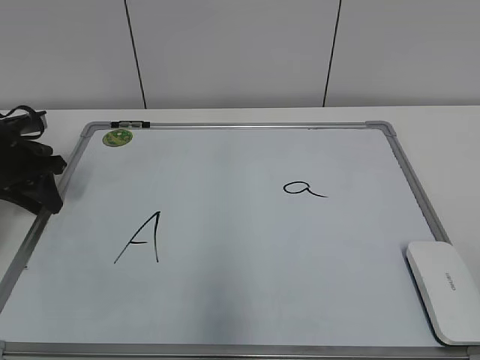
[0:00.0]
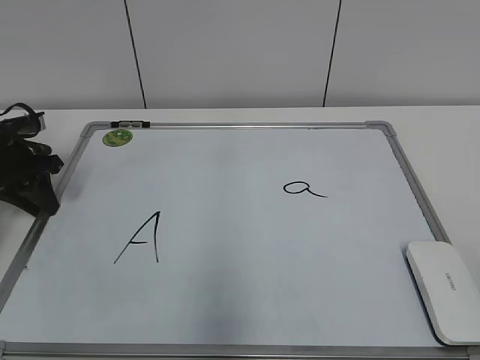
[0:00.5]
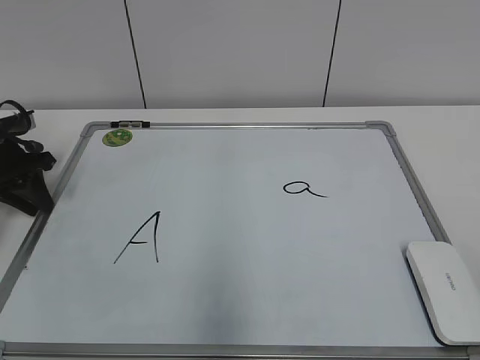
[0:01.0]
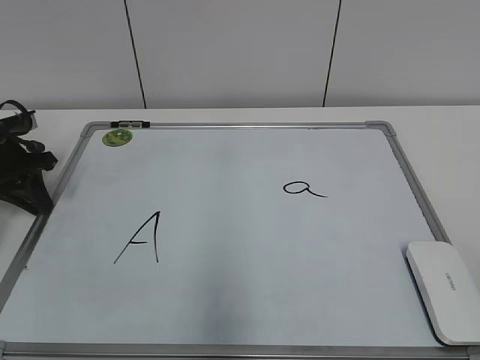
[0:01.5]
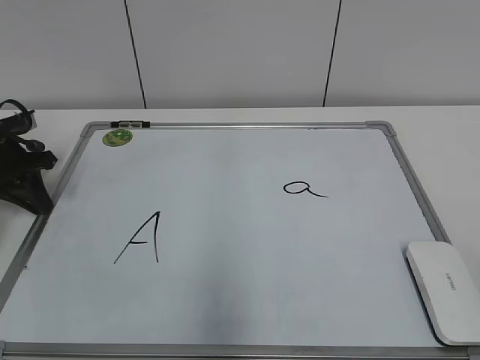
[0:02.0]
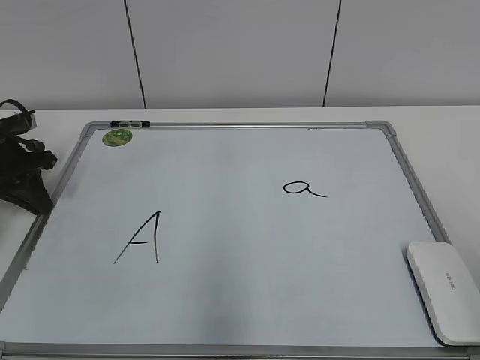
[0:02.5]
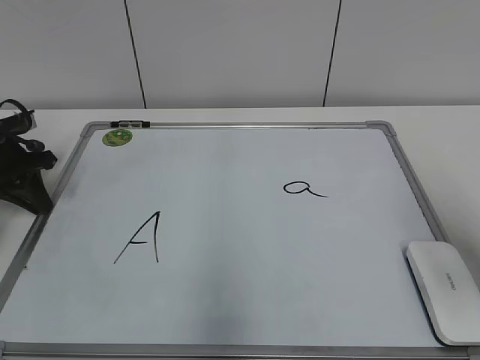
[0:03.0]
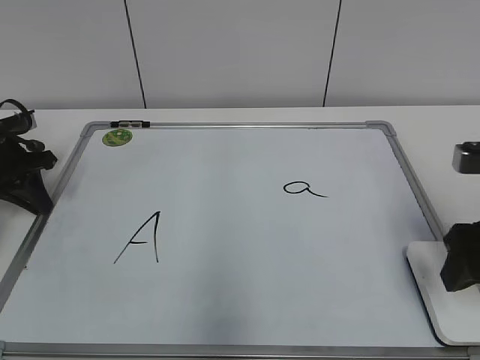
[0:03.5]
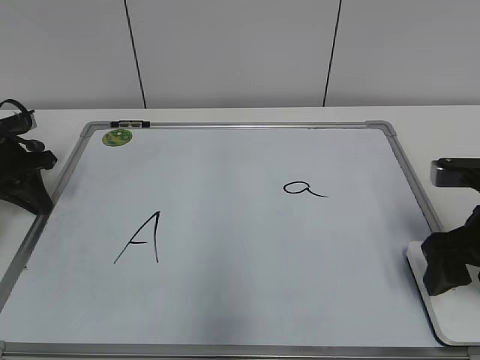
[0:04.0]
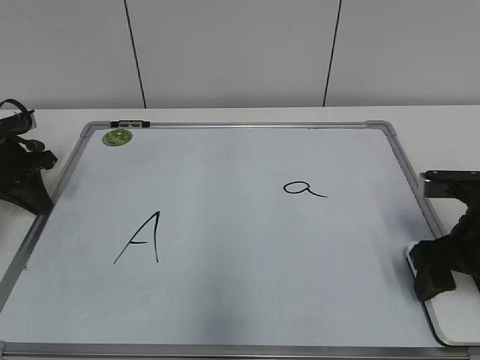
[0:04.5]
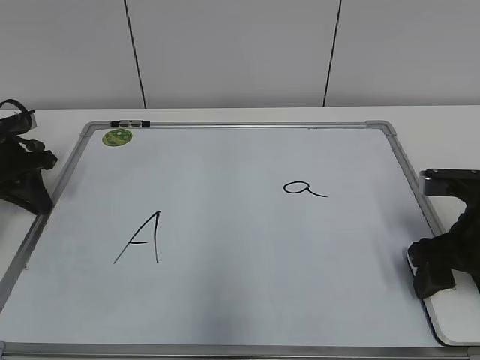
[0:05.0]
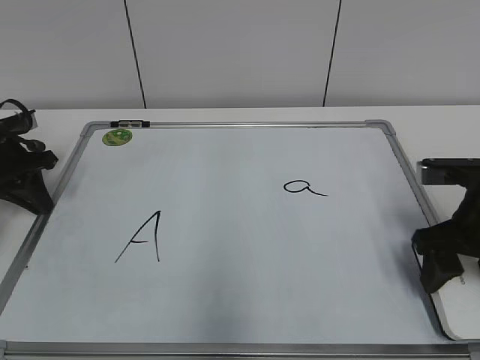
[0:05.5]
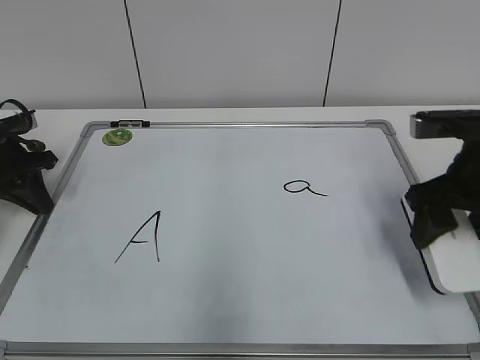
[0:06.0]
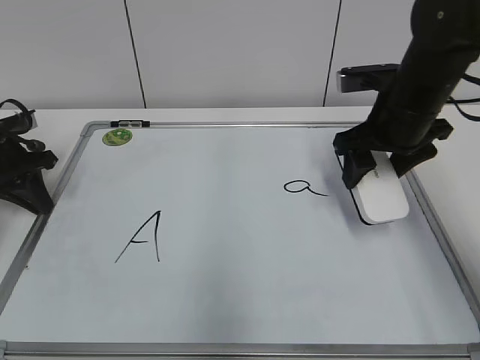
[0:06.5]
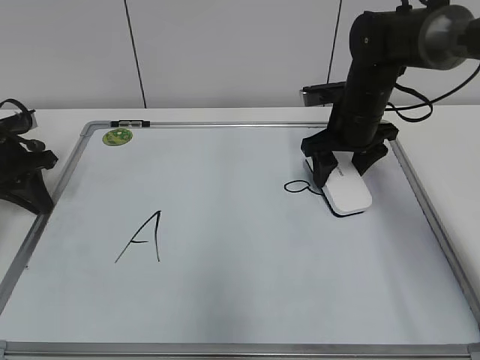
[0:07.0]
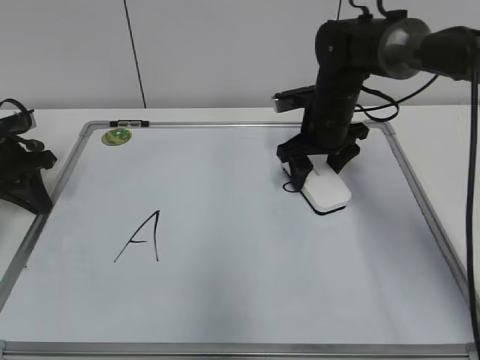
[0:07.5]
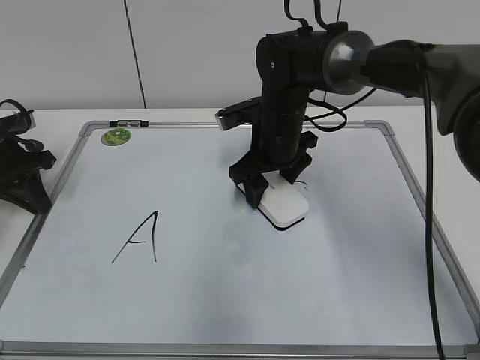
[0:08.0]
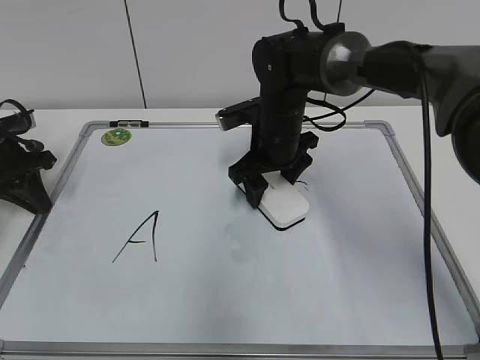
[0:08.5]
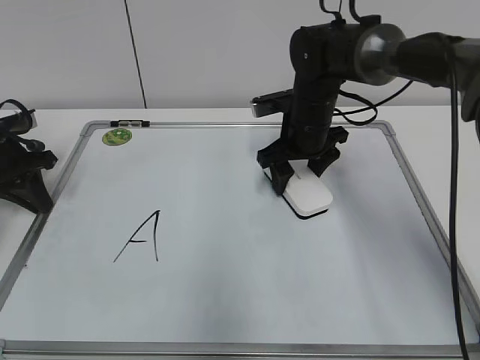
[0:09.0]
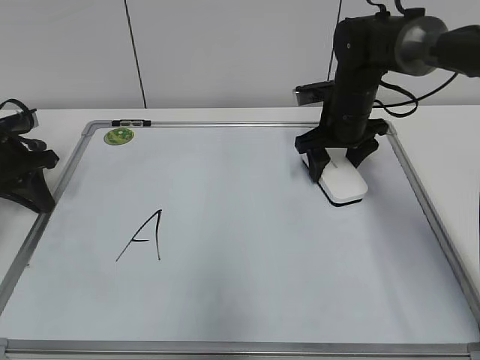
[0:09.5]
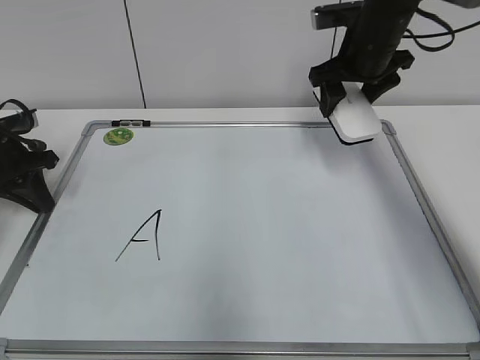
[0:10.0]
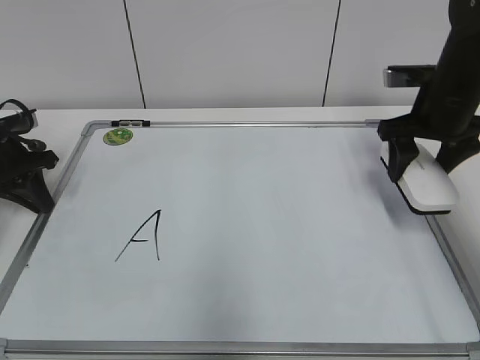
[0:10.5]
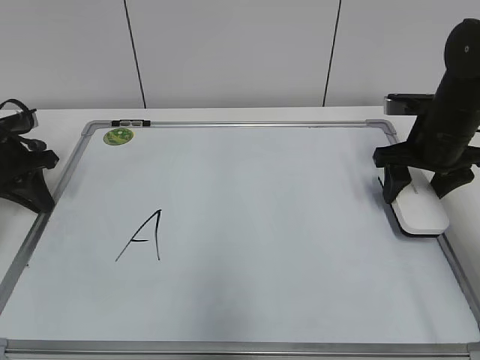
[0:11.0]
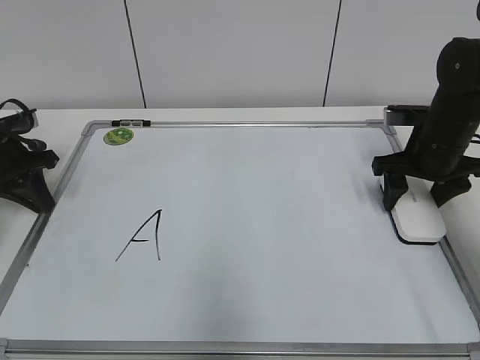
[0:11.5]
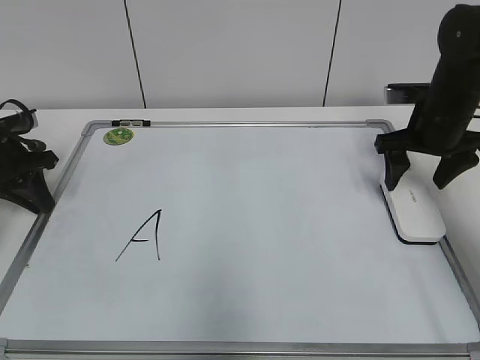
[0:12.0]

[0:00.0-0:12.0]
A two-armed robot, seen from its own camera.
Task of the whole recording: pick up the eraser on the blackboard and erase the letter "a".
Step, 0:00.0 to 0:05.0: Grab the eraser with your right hand.
Step, 0:05.5 to 0:09.0: Erase the letter a with your right hand.
Step, 0:09.5 to 0:11.5: Put down the eraser with your right hand.
0:00.0 to 0:02.0: The left gripper closes.
0:02.0 to 0:04.0: The right gripper shifts about 25 cm forward.
0:04.0 to 0:06.0: The right gripper shifts by roughly 5 cm.
0:06.0 to 0:08.0: The right gripper is displaced to the left and forward by roughly 25 cm.
0:08.0 to 0:10.0: The right gripper moves to the right and upward, about 15 cm.
0:10.0 to 0:12.0: The right gripper travels to the right, downward and backward by roughly 10 cm.

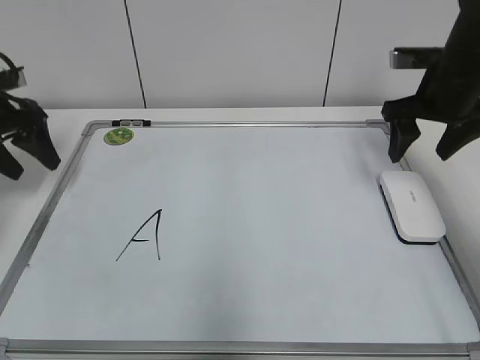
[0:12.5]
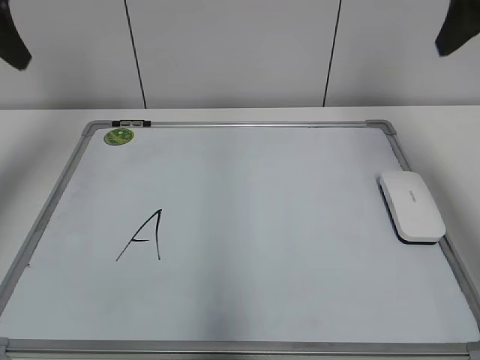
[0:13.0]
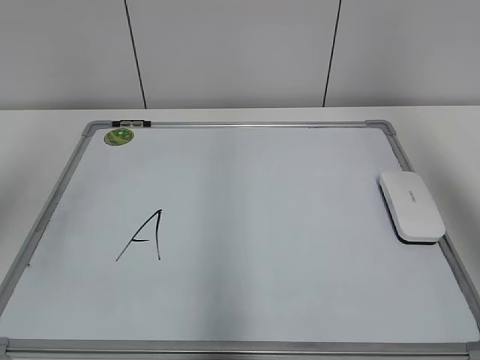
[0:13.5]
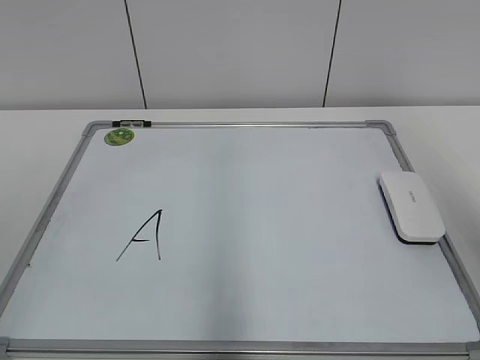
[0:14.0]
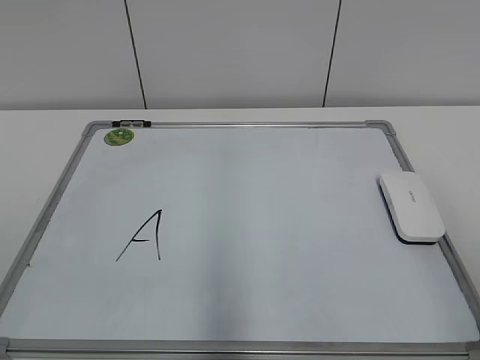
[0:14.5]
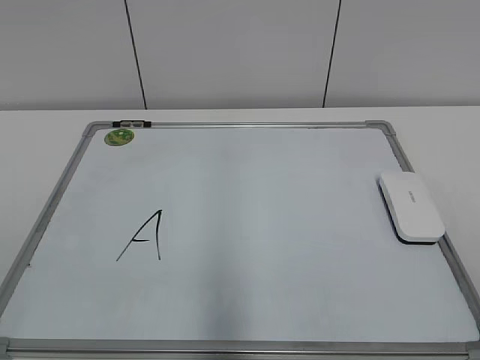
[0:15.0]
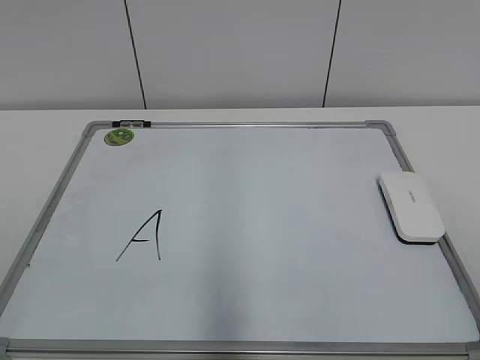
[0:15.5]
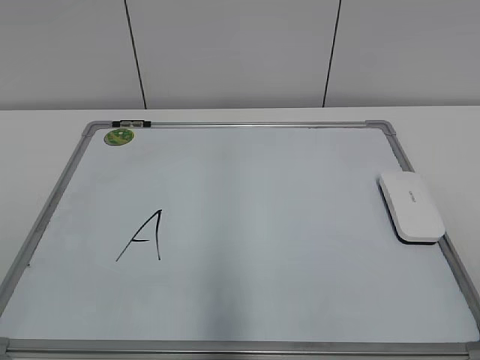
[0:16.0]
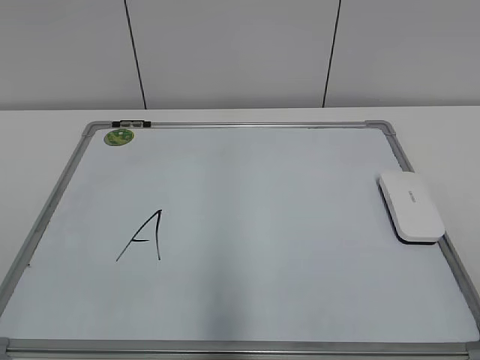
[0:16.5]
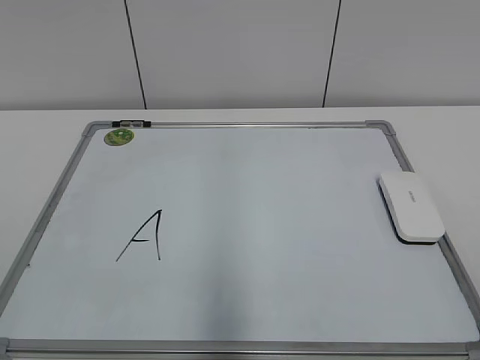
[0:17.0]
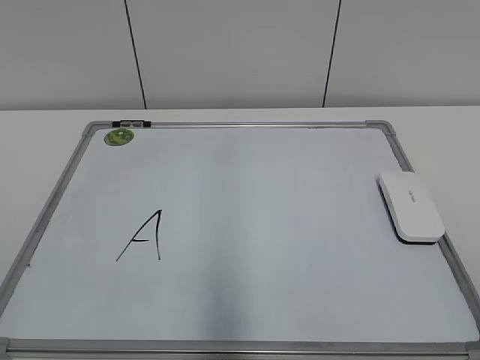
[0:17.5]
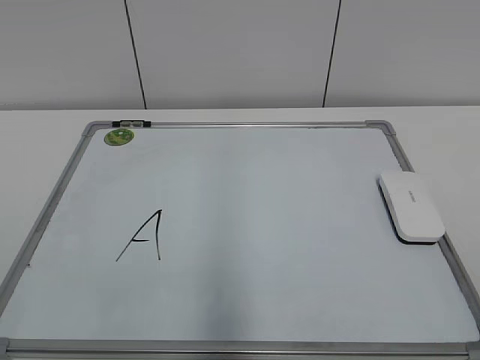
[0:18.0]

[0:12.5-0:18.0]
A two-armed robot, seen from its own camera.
Task of the whole recording: pick up the eraser on the blackboard and erase the letter "a".
0:12.5 to 0:14.5: Both grippers move backward, some 35 cm.

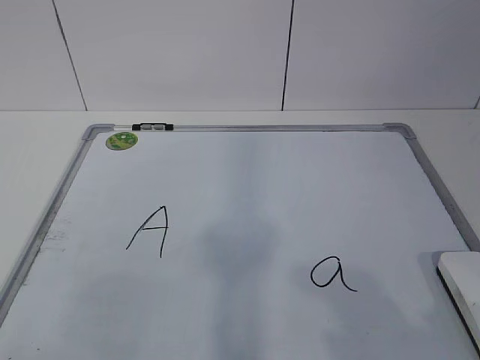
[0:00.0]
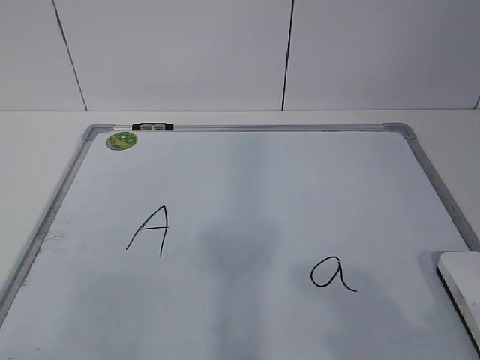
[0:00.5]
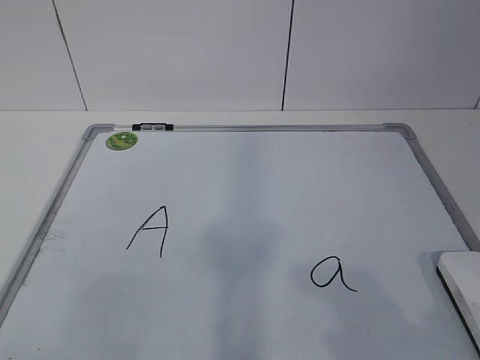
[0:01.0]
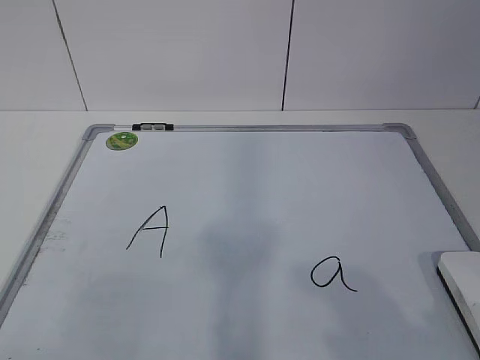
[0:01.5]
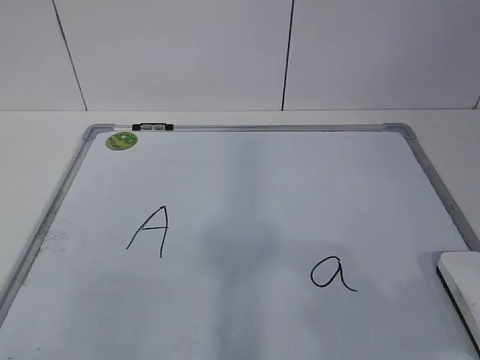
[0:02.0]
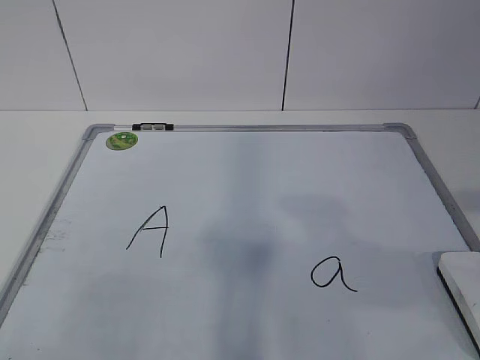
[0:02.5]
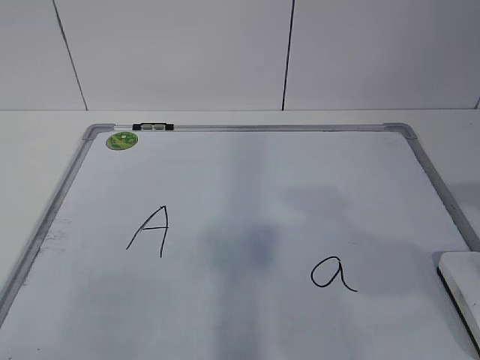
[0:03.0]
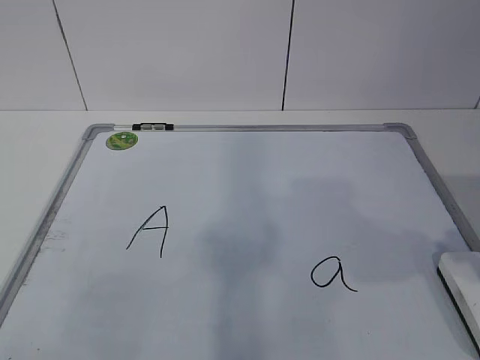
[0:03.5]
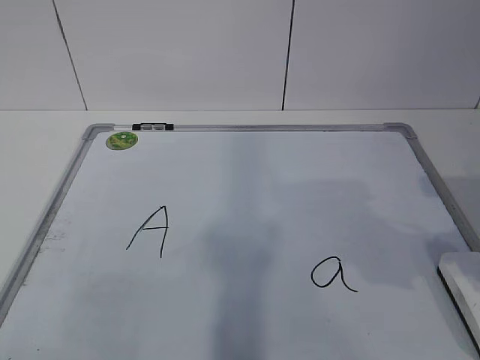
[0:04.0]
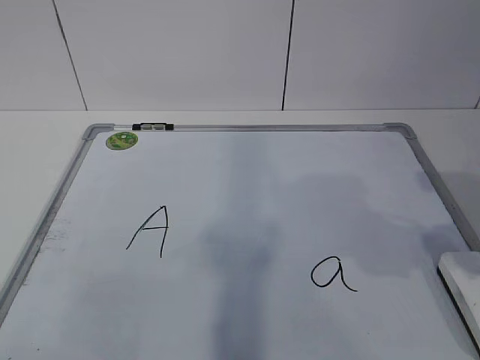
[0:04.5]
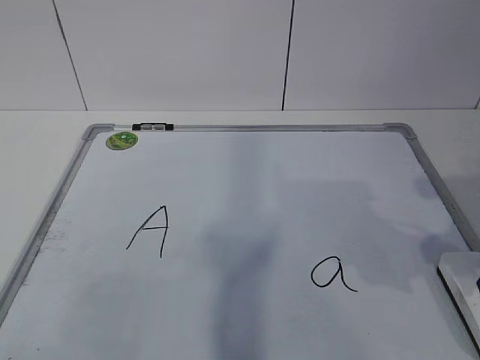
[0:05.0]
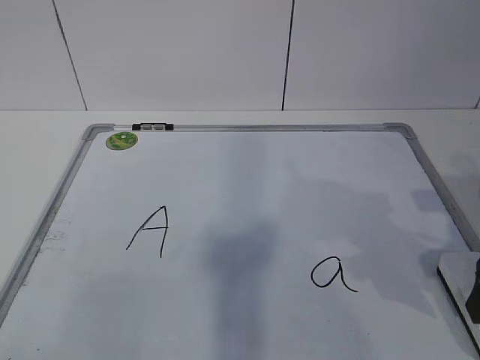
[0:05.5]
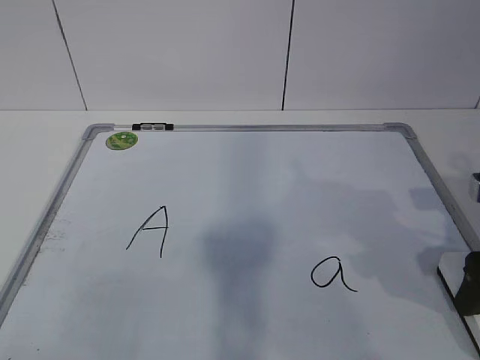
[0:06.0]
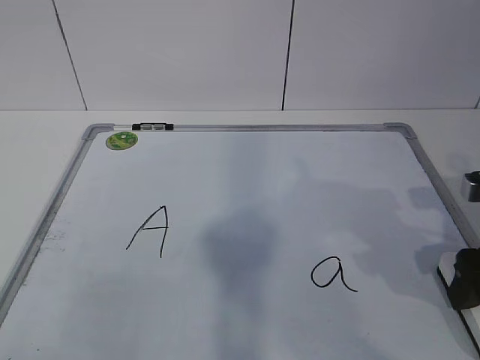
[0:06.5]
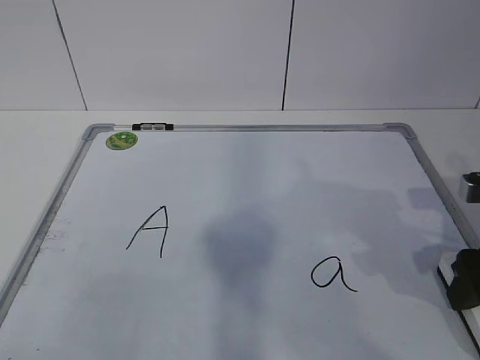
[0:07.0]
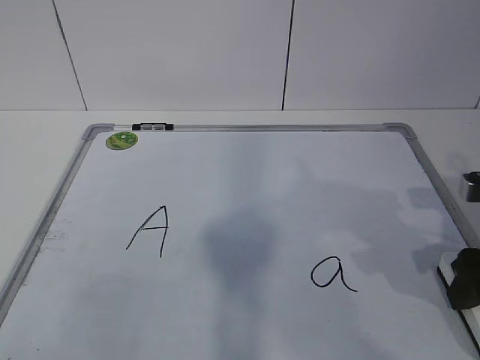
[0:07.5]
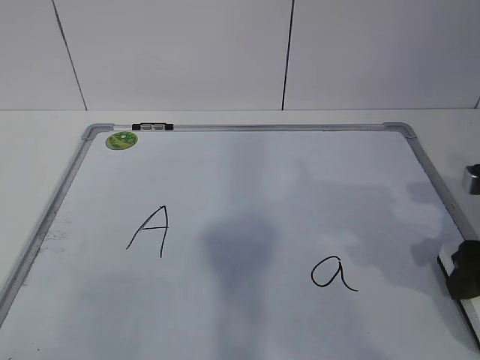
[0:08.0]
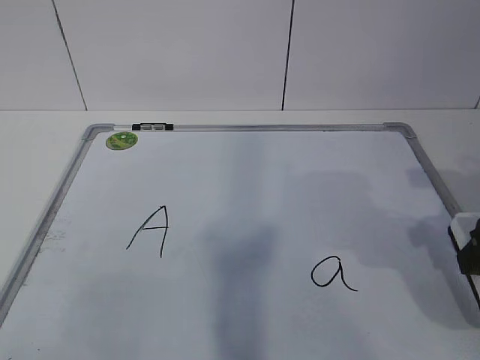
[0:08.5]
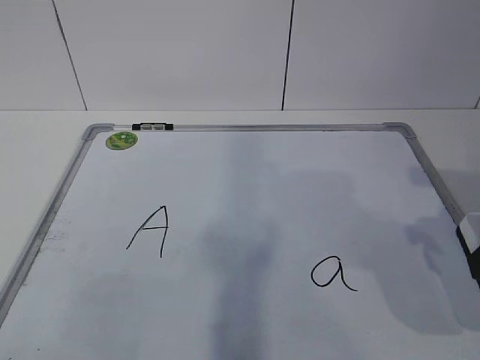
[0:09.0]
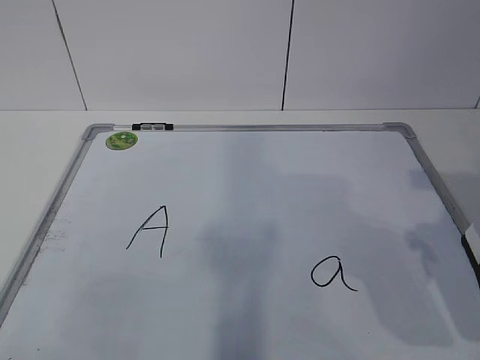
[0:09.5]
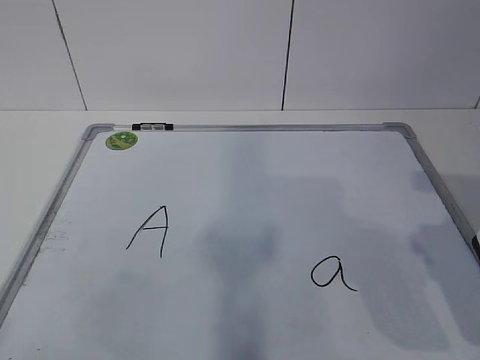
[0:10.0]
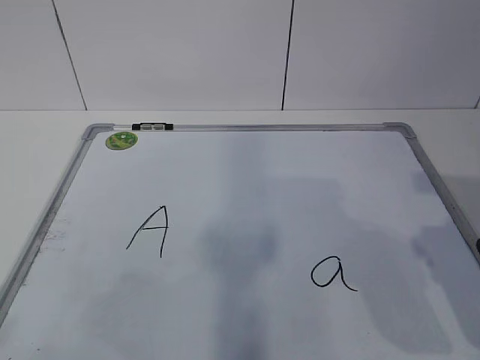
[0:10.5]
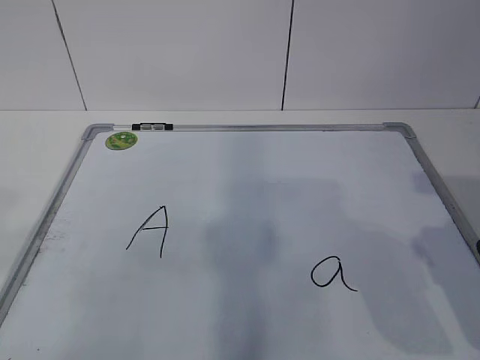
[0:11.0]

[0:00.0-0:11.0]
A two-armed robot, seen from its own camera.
Task of the whole recording: pick up the eraser on the blackboard and erase the letter "a".
0:03.5 to 0:05.5: The right gripper is displaced downward and forward by about 10 cm.
0:05.5 to 0:07.5: The right gripper closes up.
0:07.5 to 0:09.0: The right gripper travels upward by some 5 cm.
